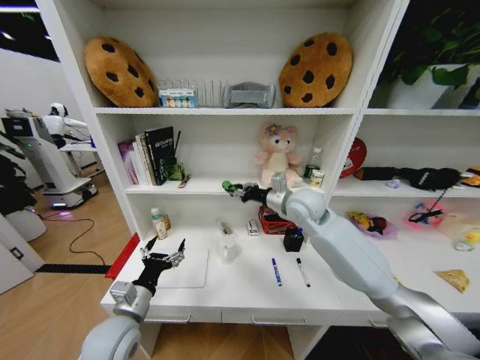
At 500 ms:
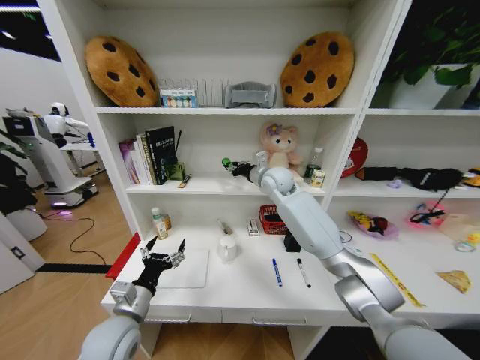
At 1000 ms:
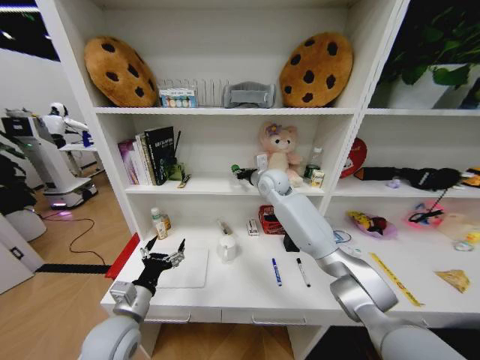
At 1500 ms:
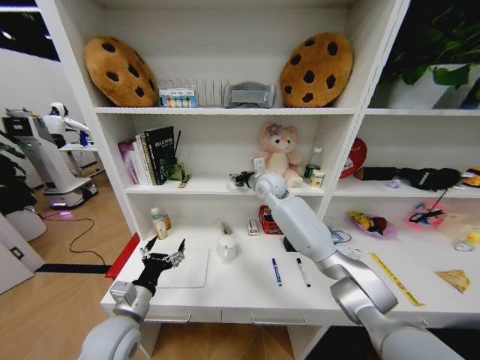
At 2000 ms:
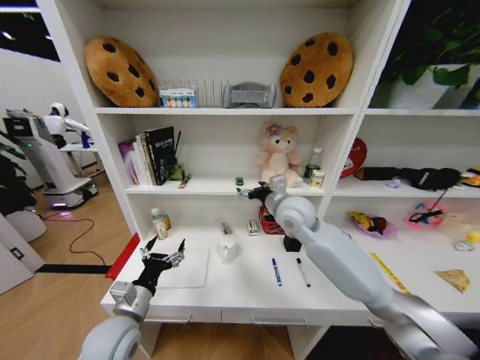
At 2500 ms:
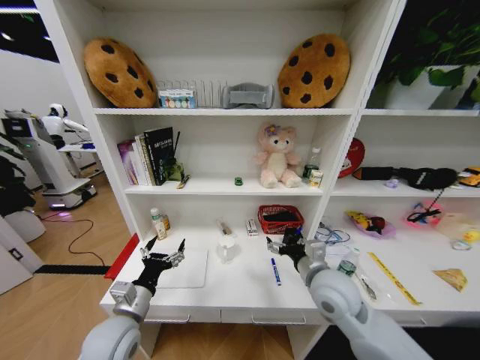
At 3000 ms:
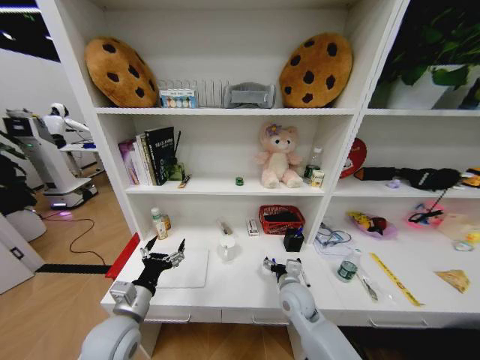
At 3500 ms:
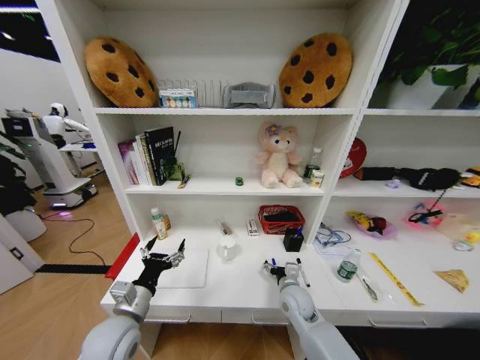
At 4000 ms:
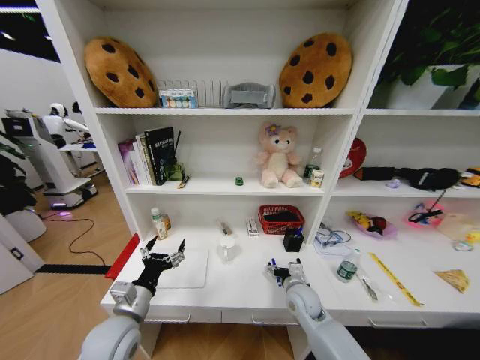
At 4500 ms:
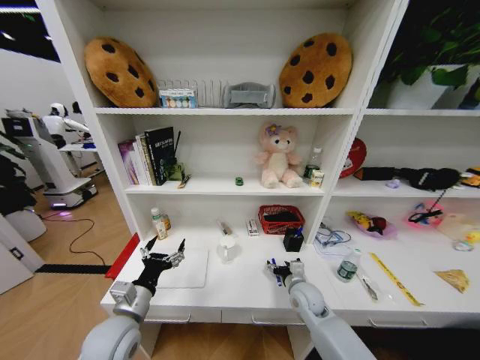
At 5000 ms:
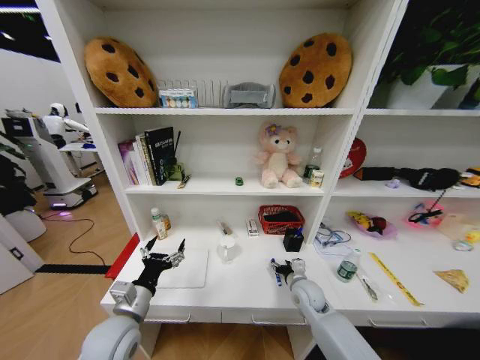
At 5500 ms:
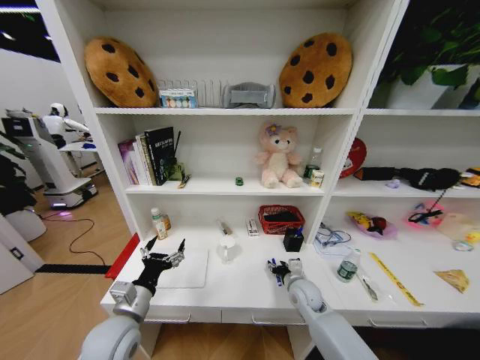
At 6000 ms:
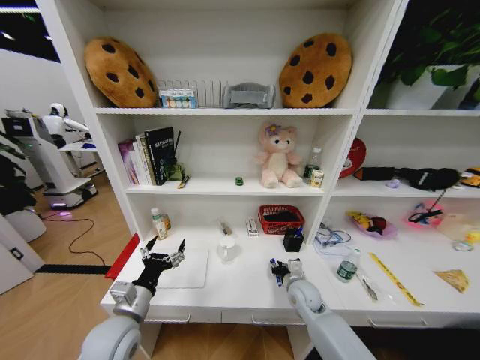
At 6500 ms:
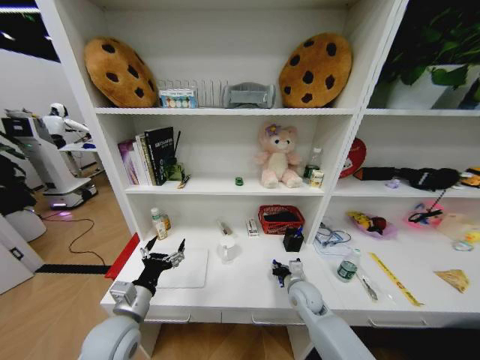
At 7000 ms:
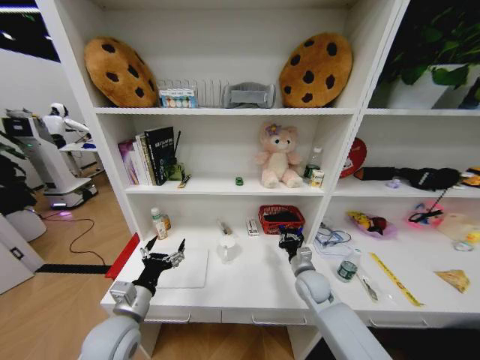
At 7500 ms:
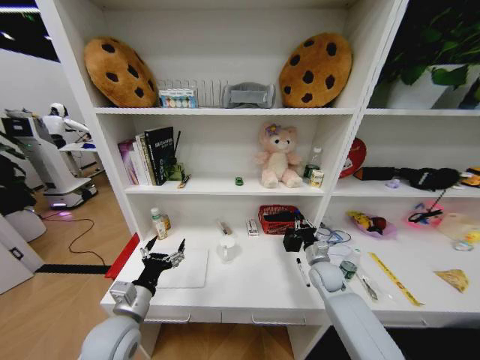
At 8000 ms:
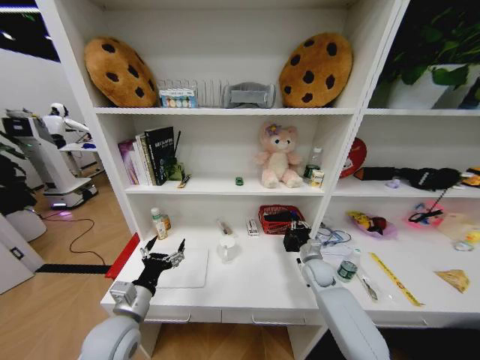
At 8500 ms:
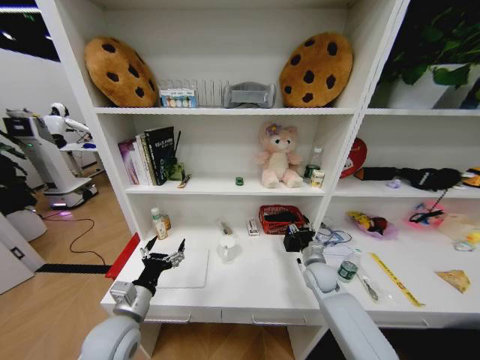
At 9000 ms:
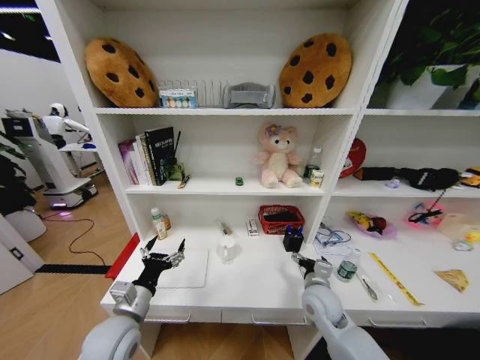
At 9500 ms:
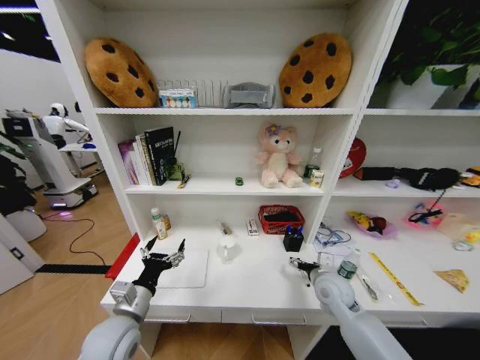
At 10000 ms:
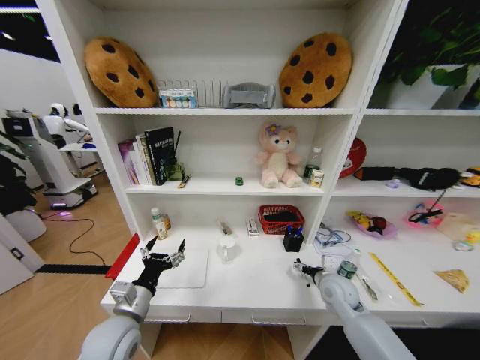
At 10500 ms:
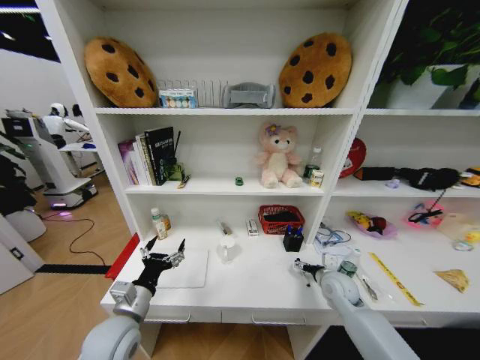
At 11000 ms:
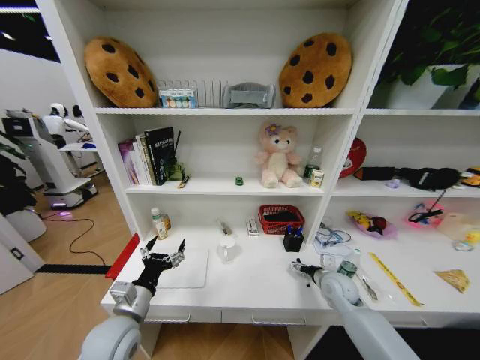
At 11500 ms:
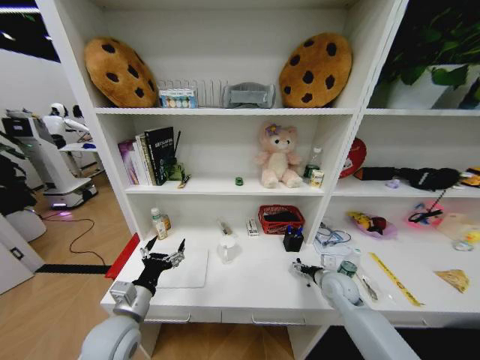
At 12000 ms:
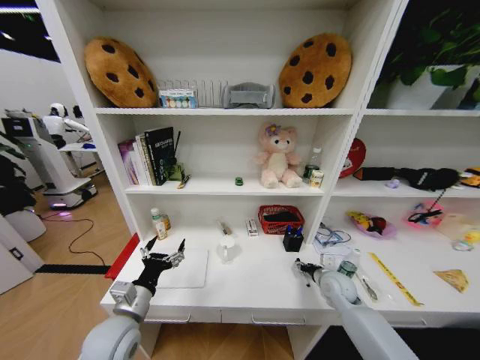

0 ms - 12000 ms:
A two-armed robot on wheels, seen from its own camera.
Task of the whole recording: Organize the objects on the table.
0 ms - 2000 ms: The right gripper reaches roughly 10 cm forward, then returns, and opens up.
2000 ms - 4000 ms: The right gripper is displaced downward by approximately 25 cm.
4000 ms - 6000 ms: The right gripper closes.
6000 ms - 8000 ms: The right gripper moves to the right and forward, some 10 cm, and closes.
8000 ms - 10000 ms: The right gripper moves backward, roughly 10 cm, and opens up.

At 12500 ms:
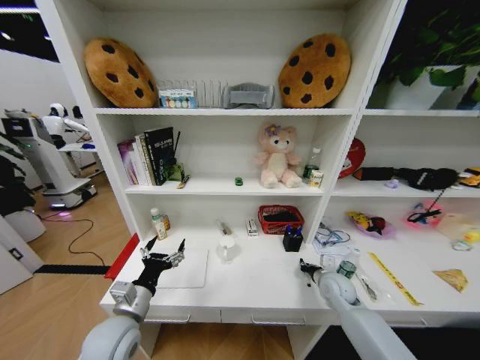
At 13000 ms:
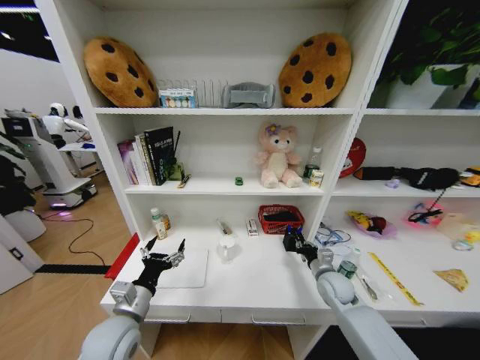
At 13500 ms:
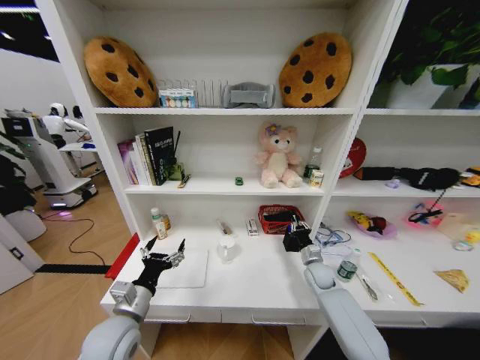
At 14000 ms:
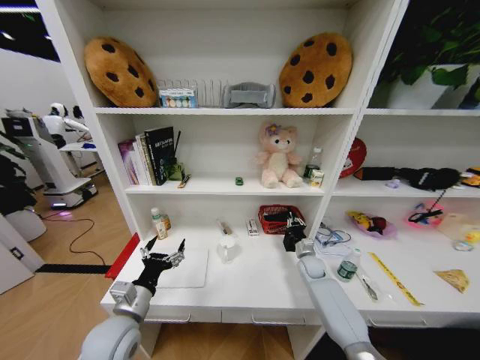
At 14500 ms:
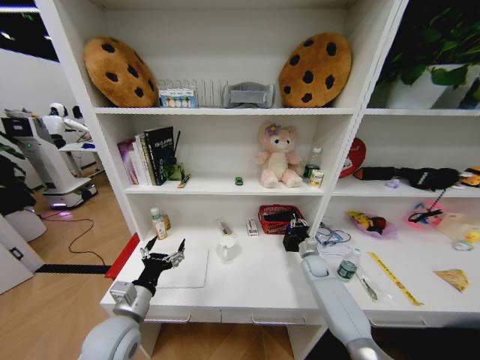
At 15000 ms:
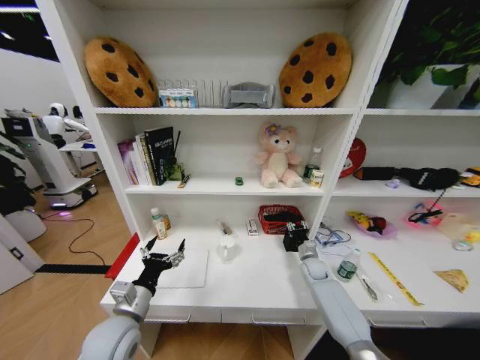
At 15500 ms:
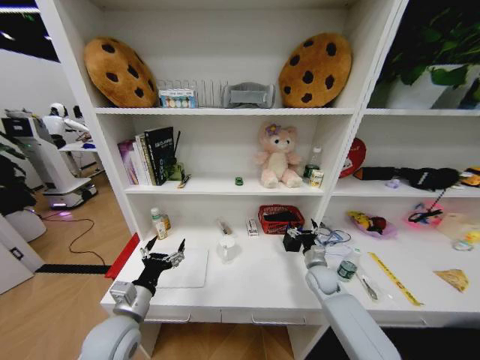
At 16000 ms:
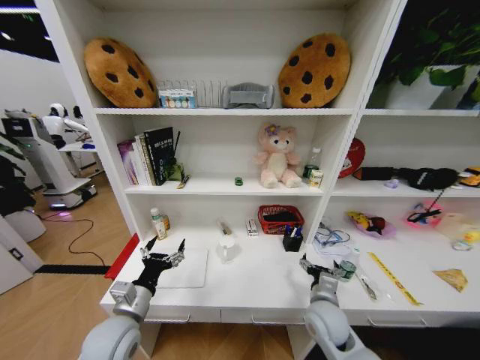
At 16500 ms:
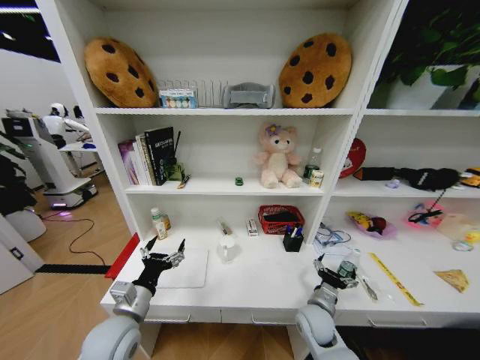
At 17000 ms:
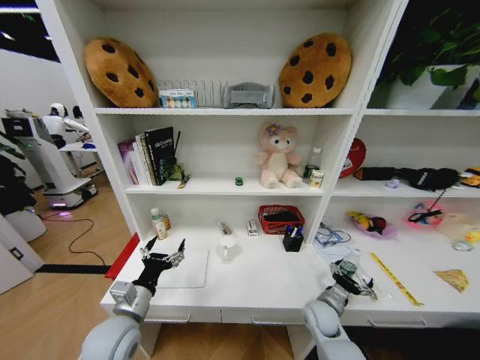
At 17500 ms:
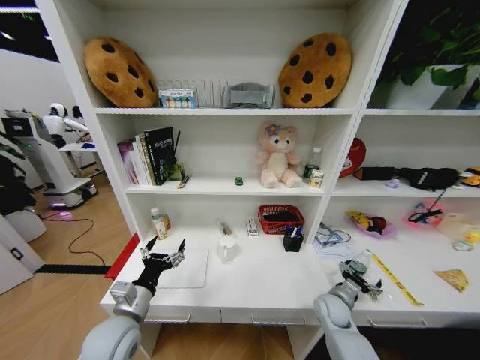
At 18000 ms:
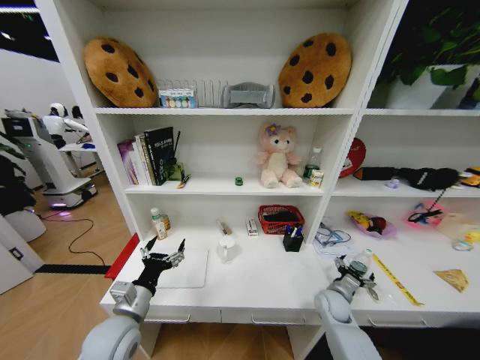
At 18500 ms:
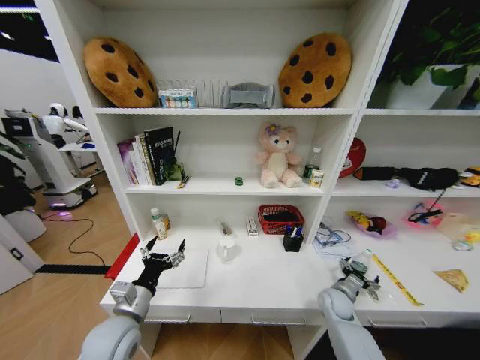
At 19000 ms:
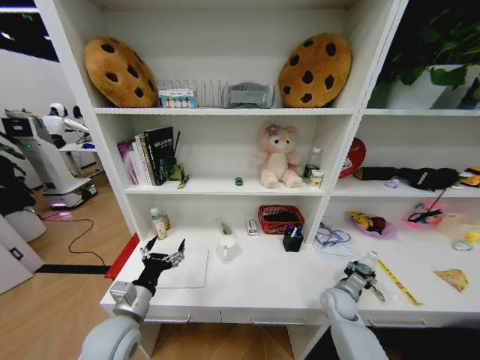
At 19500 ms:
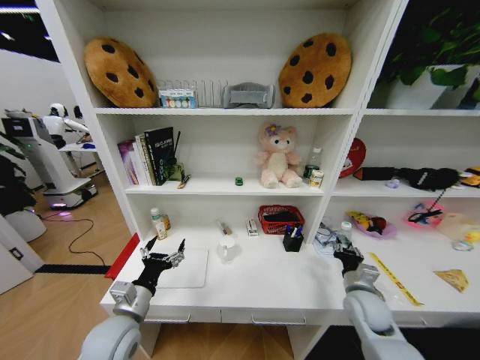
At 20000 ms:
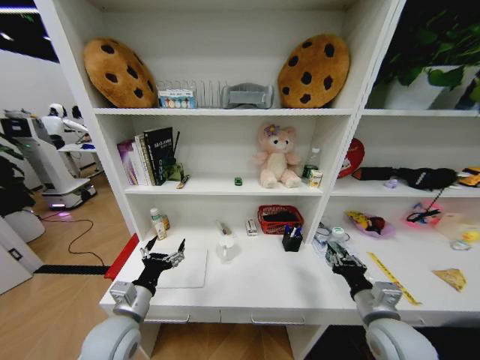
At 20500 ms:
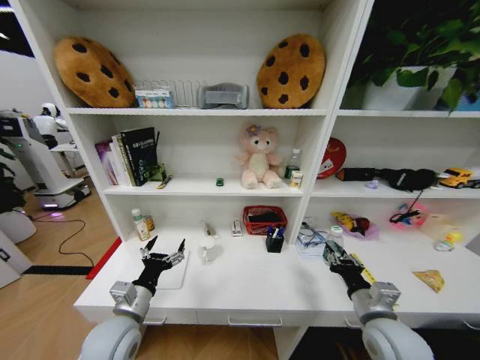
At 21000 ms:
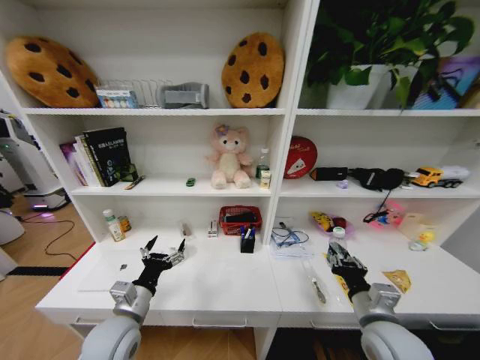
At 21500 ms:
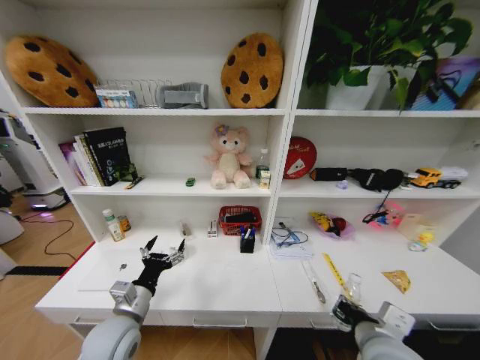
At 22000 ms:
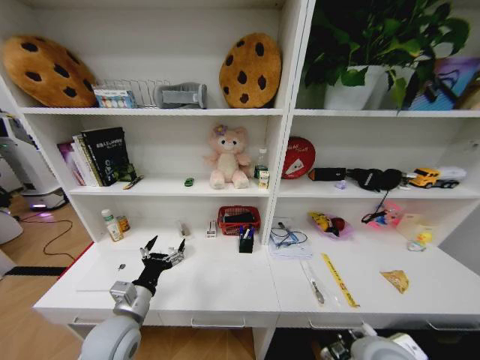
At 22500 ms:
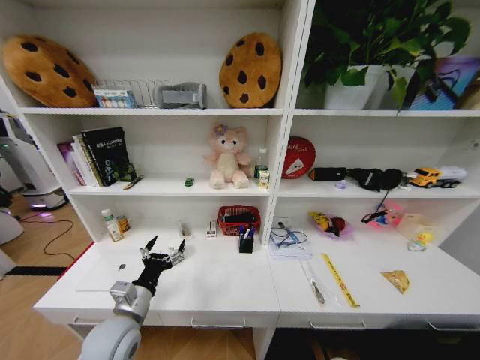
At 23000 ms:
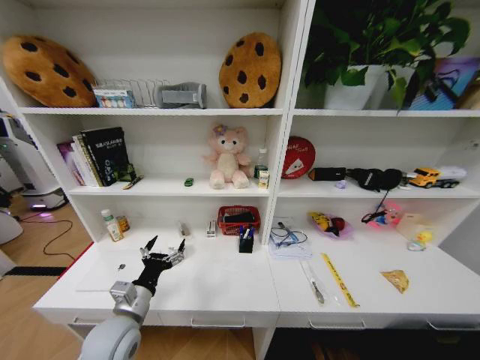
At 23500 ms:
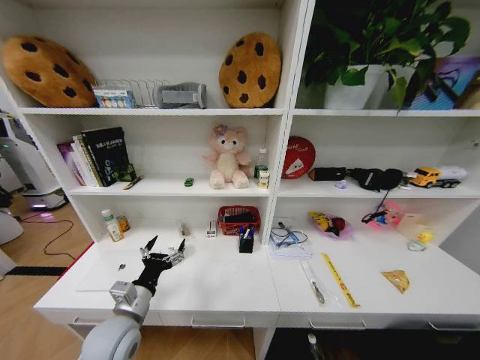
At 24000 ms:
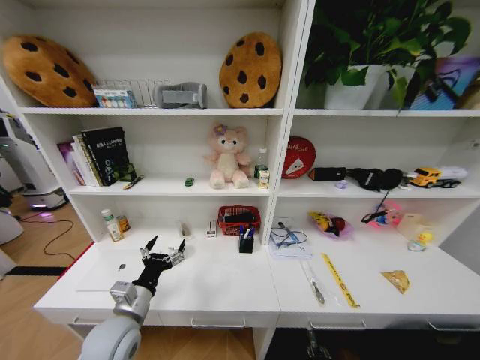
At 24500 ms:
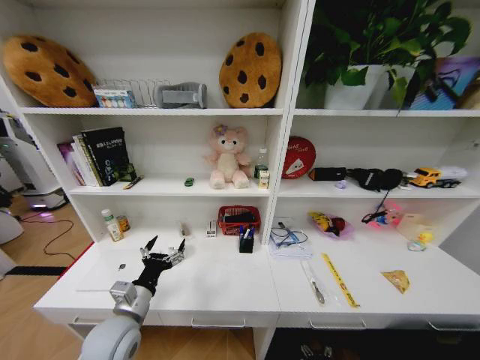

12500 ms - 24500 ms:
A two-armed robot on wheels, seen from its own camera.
Task of the whole recording: Organize the objects on the table.
12500 ms - 14500 ms: The right gripper goes some 15 cm forward and downward.
14500 ms - 16500 ms: The right gripper travels backward and to the left by some 20 cm, and opens up.
16500 ms - 18500 ms: The right gripper is displaced to the right and forward by some 15 cm.
18500 ms - 20500 ms: The right gripper goes about 20 cm upward and backward, and closes.
20500 ms - 22500 ms: The right gripper shifts approximately 20 cm downward.

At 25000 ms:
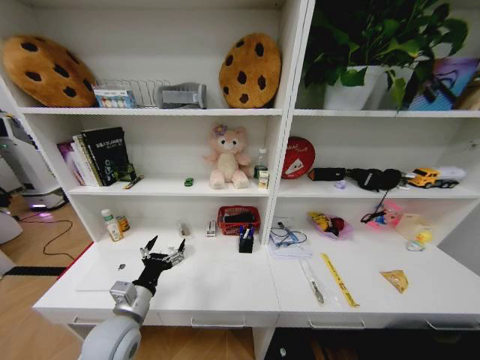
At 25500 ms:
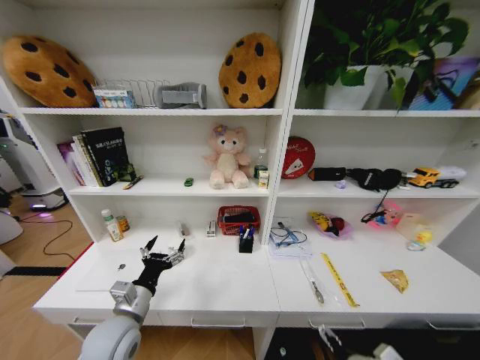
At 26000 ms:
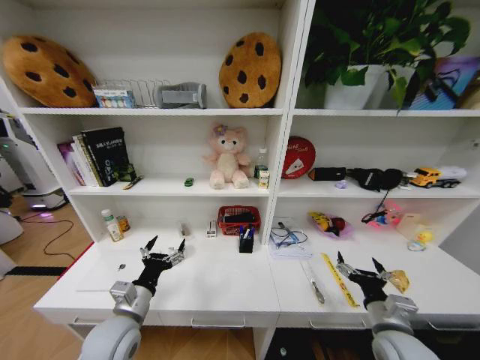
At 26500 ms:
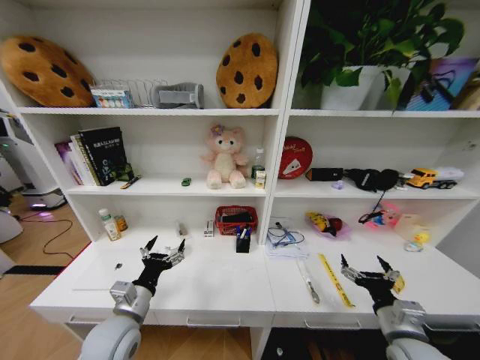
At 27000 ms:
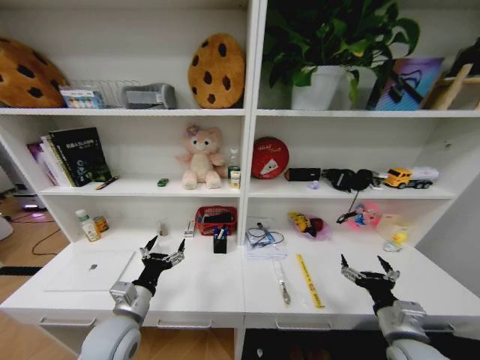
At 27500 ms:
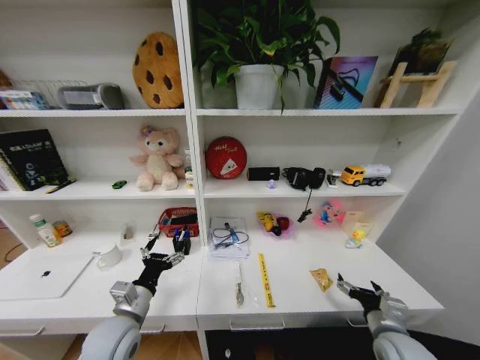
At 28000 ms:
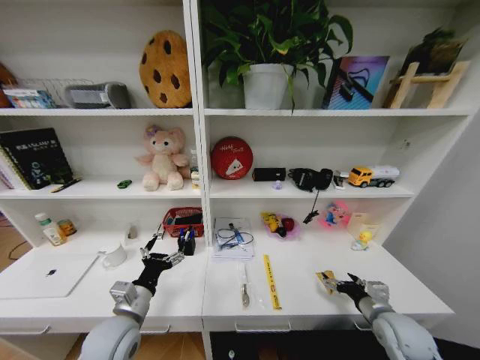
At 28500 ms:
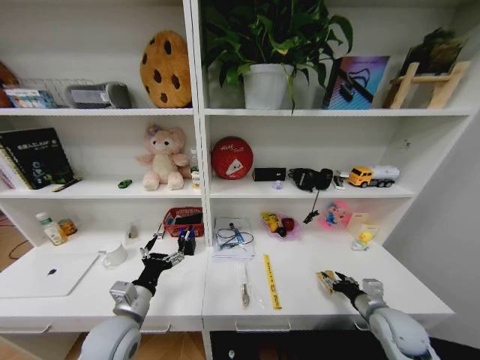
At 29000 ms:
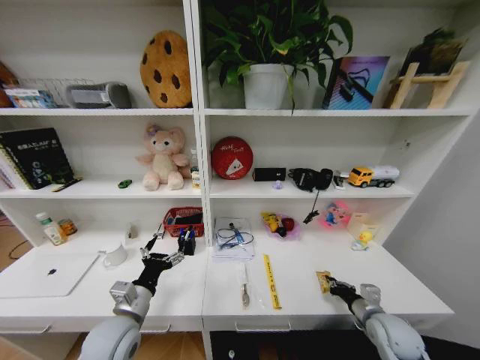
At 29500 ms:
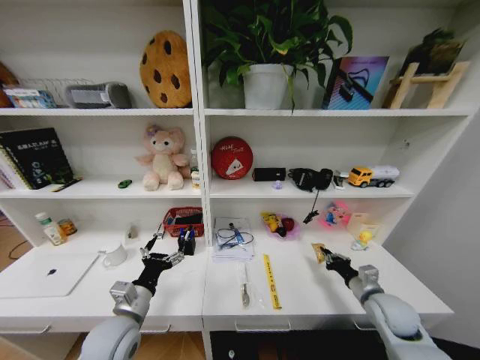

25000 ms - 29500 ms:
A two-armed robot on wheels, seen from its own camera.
Task of the whole recording: Organize the objects on the table.
25000 ms - 27000 ms: The right gripper heads upward, covering roughly 30 cm.
27000 ms - 29500 ms: The right gripper goes about 10 cm forward and to the right, and closes its fingers.
